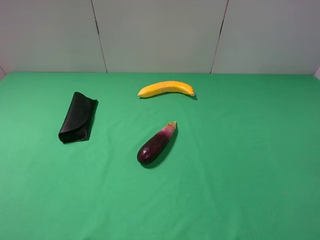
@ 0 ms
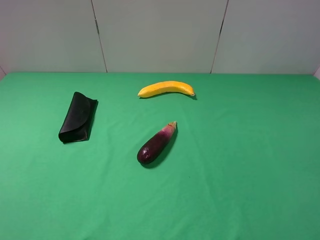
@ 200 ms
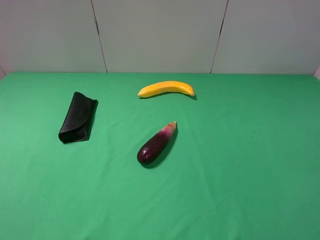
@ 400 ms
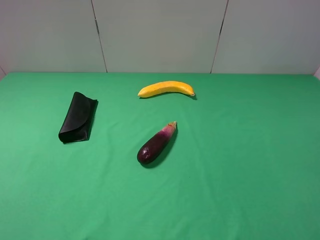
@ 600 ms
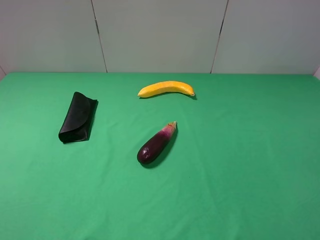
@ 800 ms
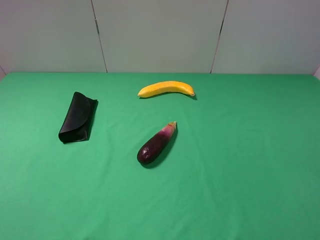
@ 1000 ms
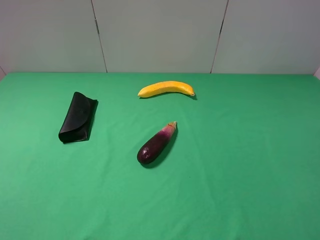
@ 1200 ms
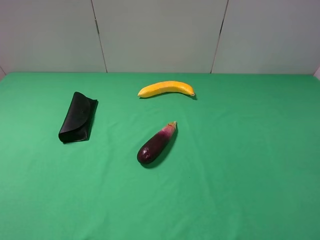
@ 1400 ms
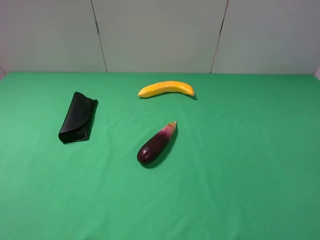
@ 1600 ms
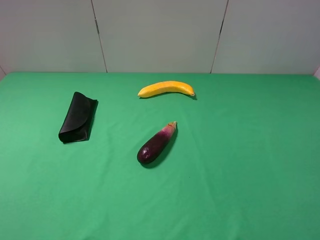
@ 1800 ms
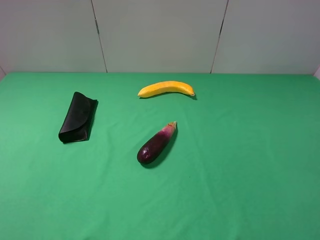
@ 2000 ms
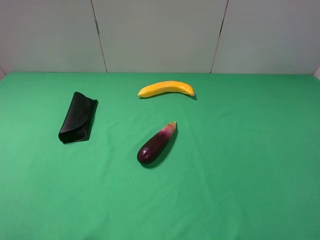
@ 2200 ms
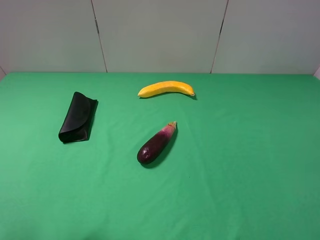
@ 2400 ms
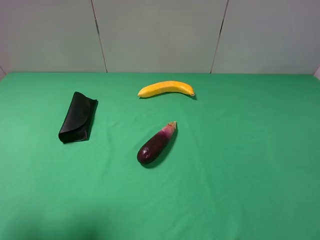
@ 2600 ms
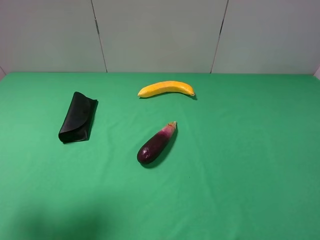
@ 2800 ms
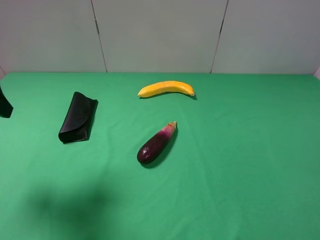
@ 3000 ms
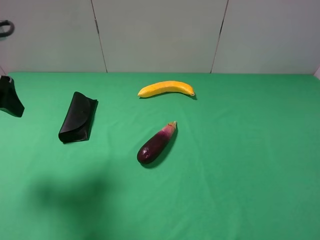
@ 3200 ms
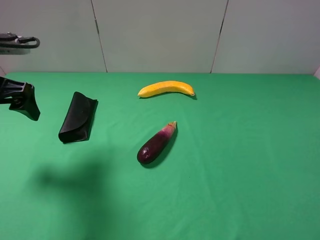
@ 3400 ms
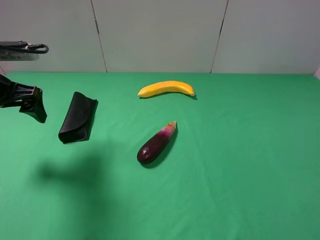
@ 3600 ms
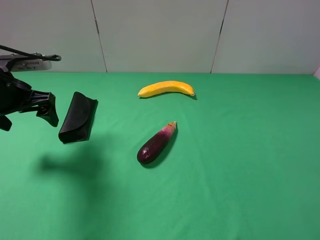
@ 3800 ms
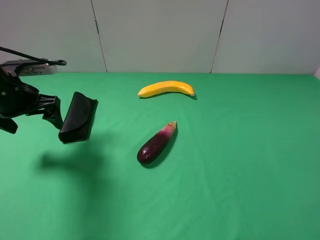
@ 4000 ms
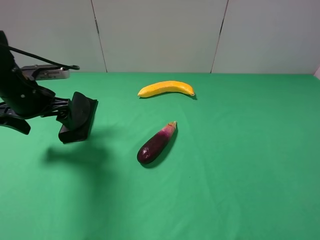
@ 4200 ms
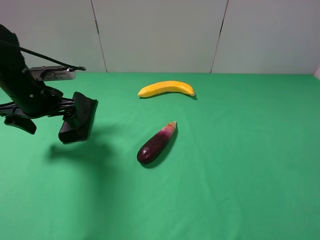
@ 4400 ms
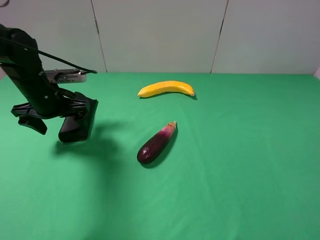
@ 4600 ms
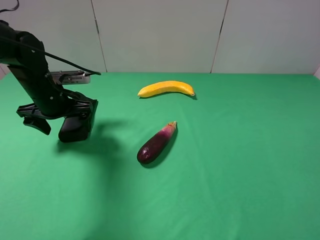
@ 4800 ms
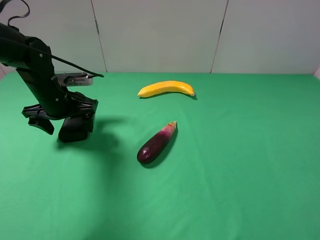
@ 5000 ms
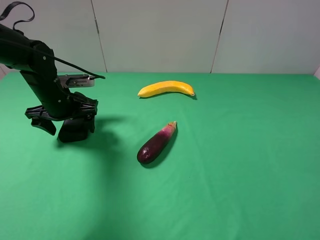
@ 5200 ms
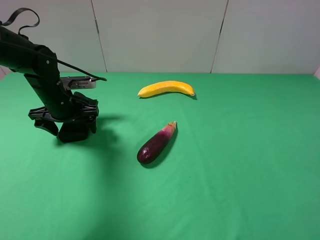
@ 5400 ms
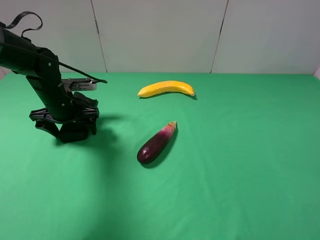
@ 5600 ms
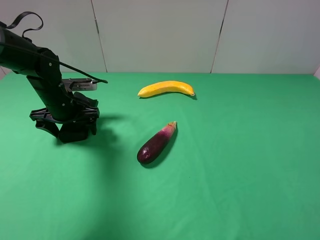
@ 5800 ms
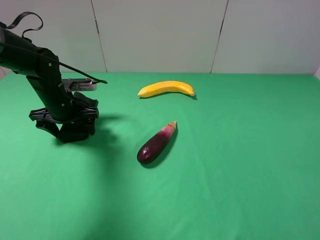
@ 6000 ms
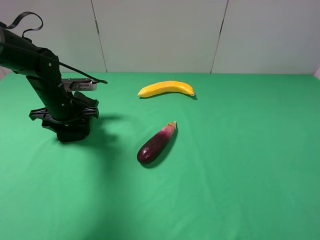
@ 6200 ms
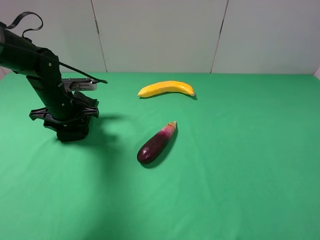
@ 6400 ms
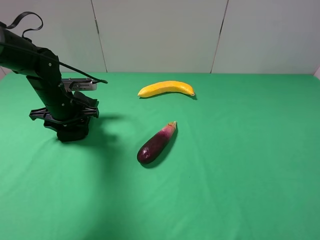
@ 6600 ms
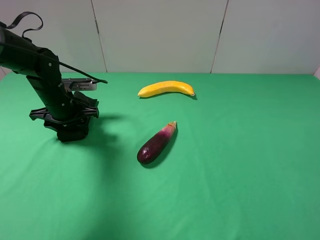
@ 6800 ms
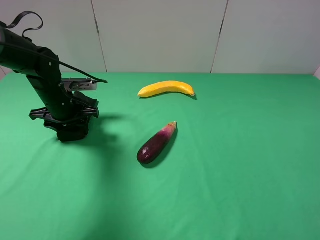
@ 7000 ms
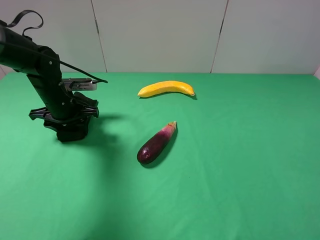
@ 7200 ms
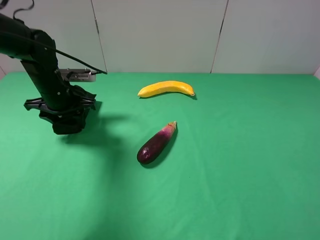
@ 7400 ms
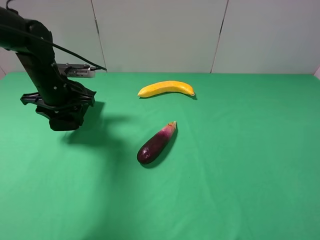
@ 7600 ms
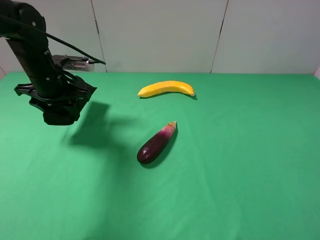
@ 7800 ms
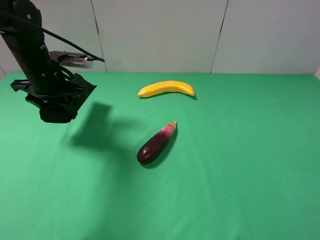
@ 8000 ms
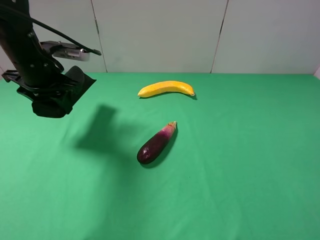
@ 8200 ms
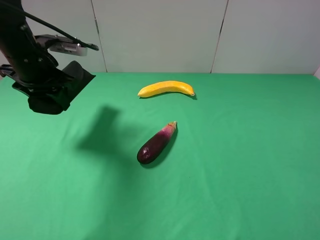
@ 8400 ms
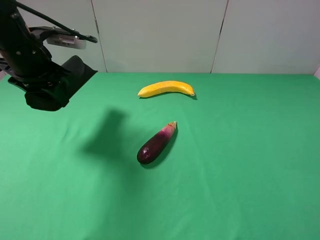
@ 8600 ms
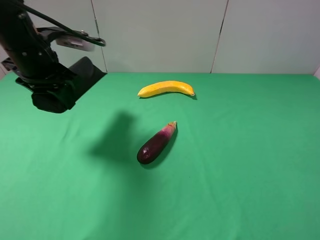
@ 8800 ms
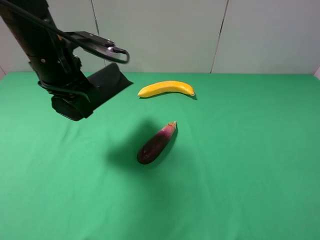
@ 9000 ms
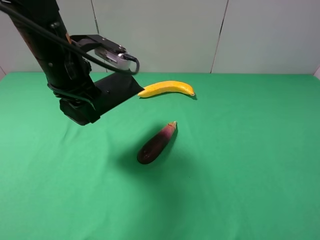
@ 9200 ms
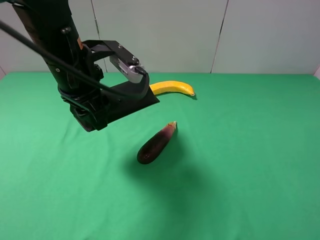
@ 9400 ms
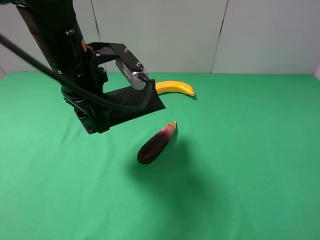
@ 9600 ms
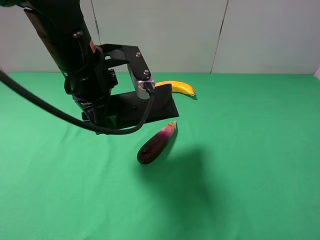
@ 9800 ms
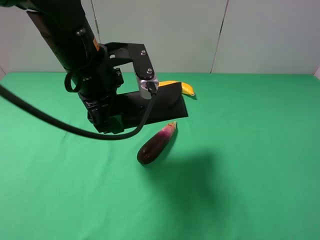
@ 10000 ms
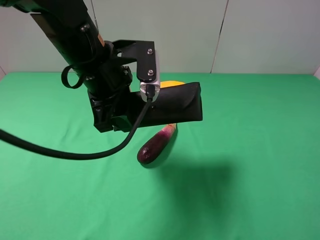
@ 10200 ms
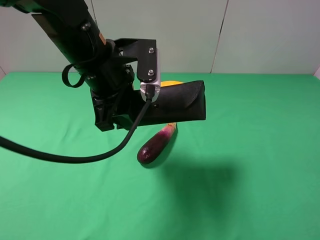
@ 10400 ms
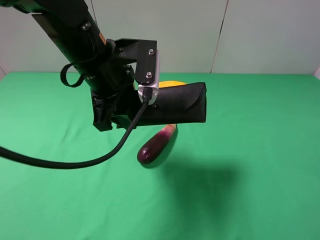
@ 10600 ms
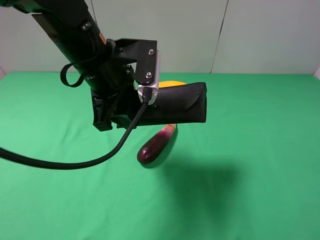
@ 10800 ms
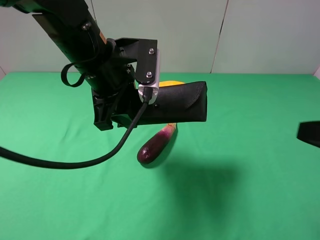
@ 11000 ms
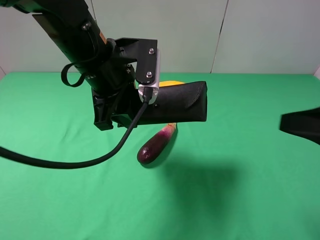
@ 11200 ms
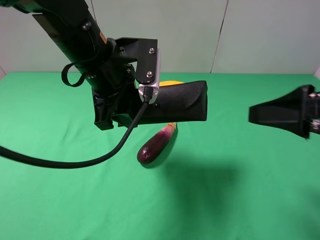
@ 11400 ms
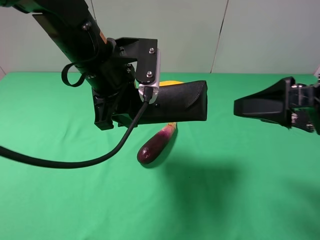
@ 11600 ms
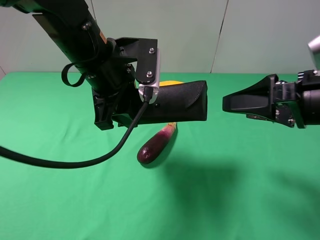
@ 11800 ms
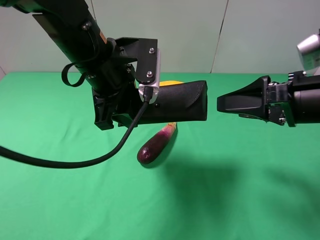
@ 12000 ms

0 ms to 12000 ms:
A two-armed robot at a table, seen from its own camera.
Task of the whole recording: use the left gripper to pick up the item and transfer it from the left gripper to the right gripper.
Step, 0 ms to 6400 ms: Use the left gripper to grab the eyeglass case on the left side of the table.
0 ms to 1600 ms: The two grippers keep their place.
1600 ms to 3000 ms: The left gripper is displaced forward by about 20 cm.
3000 ms to 4400 ms: The left gripper shifts roughly 20 cm downward and forward.
4400 ms to 6000 ms: The left gripper heads downward, covering about 5 cm.
6000 ms to 7600 ms: The left gripper heads upward, covering some 5 cm, and closes.
7600 ms to 9000 ms: The left gripper moves upward, to the right and backward, some 15 cm.
9000 ms to 10400 ms: The left gripper is displaced to the right by roughly 10 cm.
10400 ms to 12000 ms: The right gripper heads forward, covering some 20 cm.

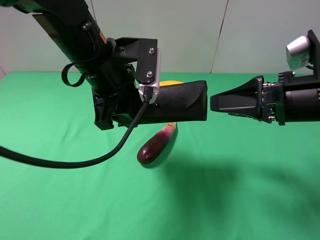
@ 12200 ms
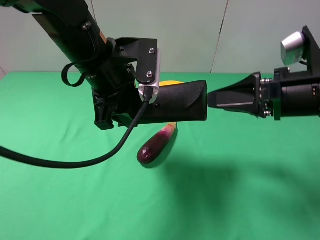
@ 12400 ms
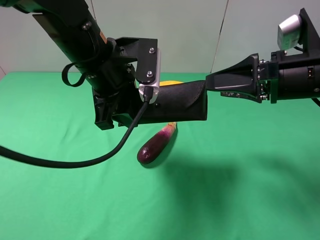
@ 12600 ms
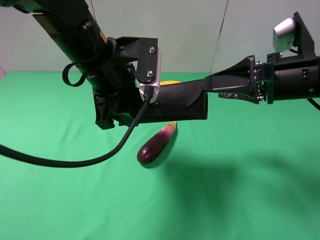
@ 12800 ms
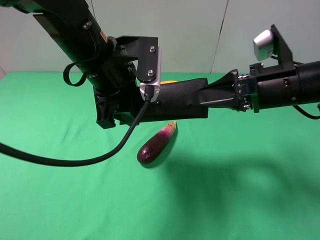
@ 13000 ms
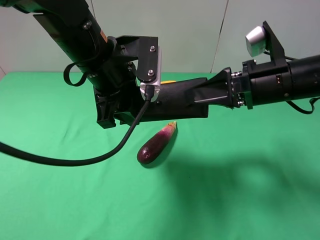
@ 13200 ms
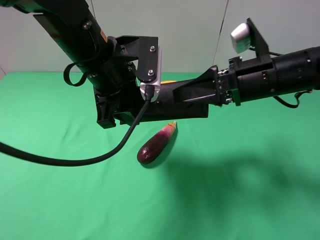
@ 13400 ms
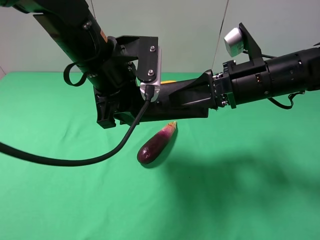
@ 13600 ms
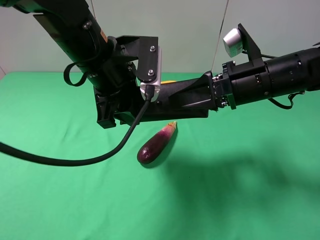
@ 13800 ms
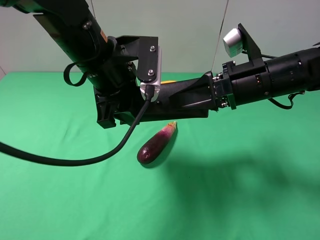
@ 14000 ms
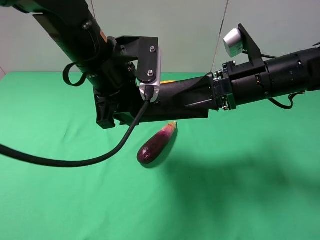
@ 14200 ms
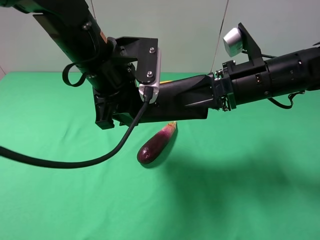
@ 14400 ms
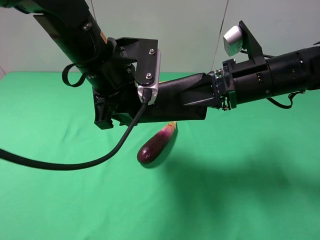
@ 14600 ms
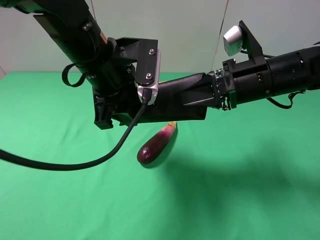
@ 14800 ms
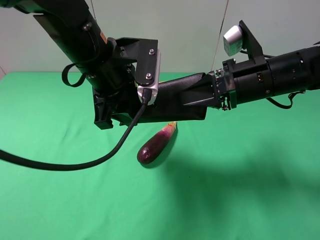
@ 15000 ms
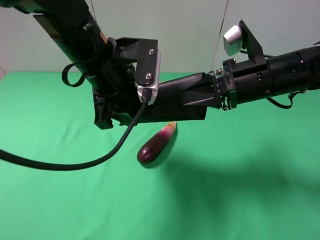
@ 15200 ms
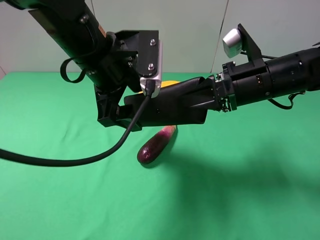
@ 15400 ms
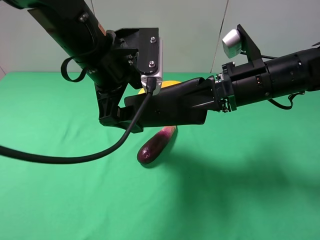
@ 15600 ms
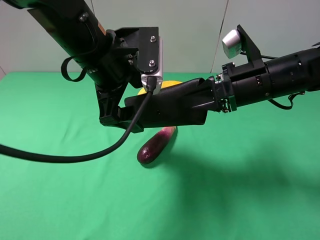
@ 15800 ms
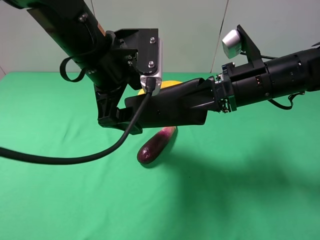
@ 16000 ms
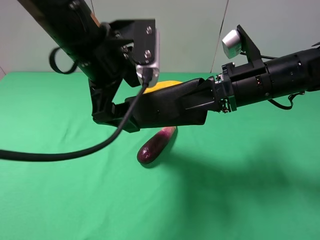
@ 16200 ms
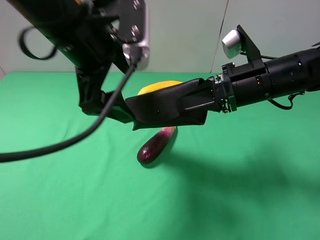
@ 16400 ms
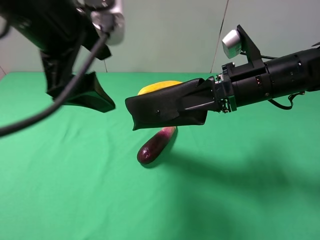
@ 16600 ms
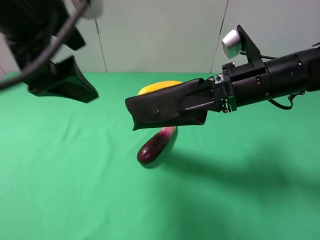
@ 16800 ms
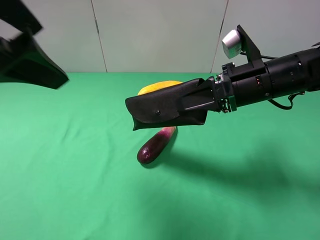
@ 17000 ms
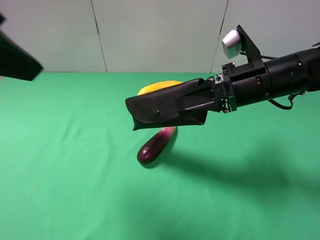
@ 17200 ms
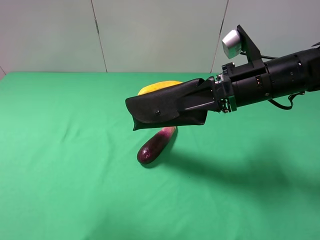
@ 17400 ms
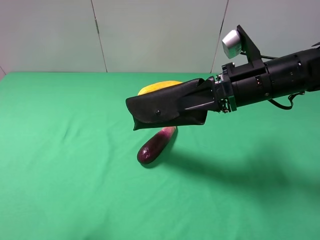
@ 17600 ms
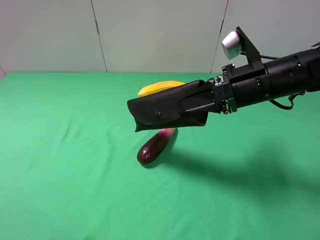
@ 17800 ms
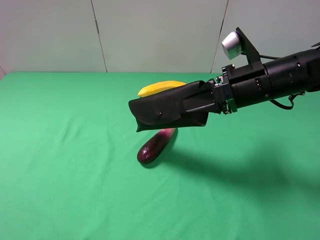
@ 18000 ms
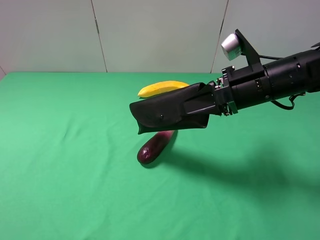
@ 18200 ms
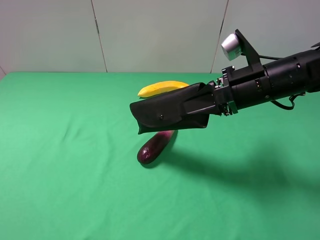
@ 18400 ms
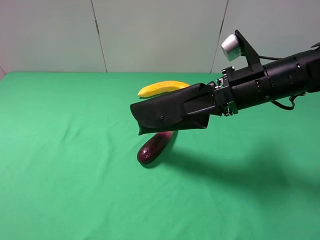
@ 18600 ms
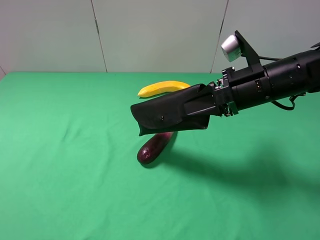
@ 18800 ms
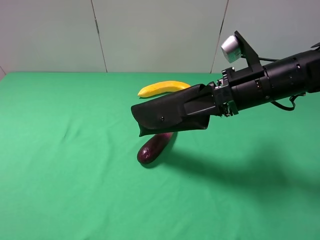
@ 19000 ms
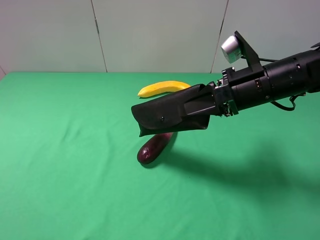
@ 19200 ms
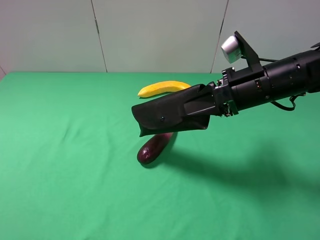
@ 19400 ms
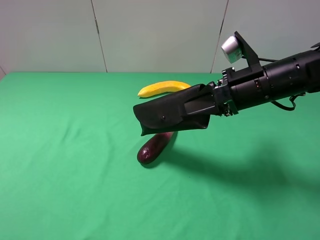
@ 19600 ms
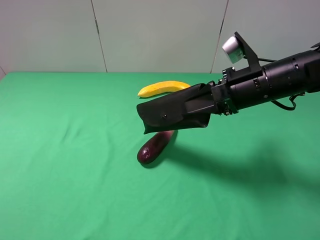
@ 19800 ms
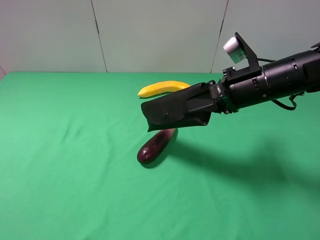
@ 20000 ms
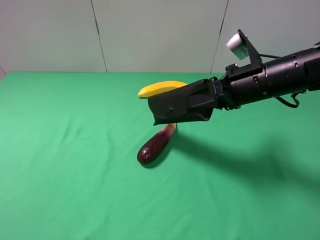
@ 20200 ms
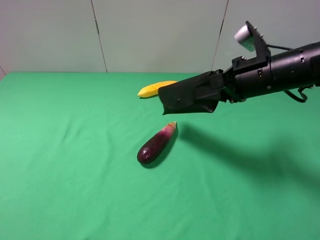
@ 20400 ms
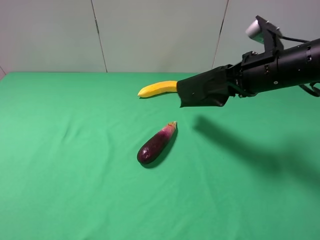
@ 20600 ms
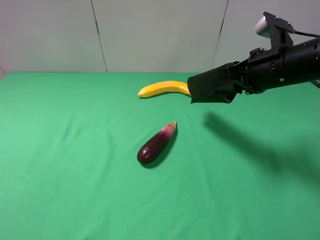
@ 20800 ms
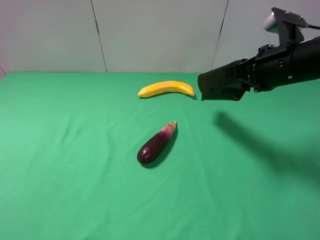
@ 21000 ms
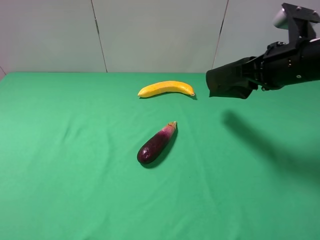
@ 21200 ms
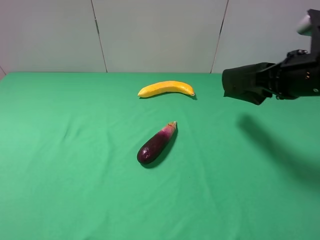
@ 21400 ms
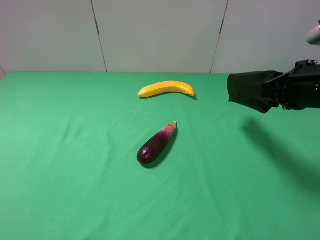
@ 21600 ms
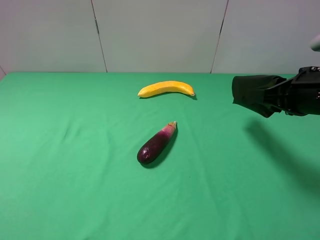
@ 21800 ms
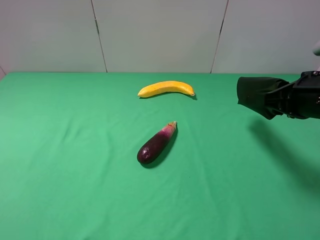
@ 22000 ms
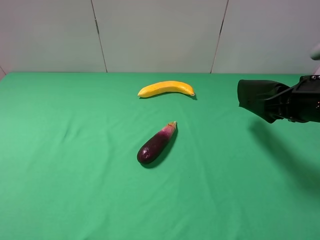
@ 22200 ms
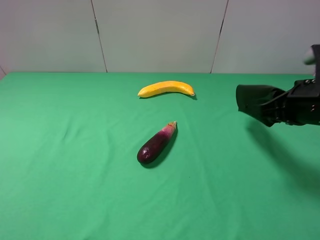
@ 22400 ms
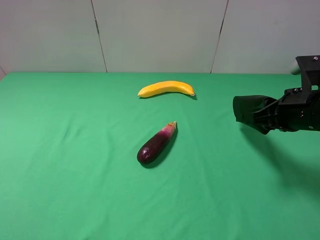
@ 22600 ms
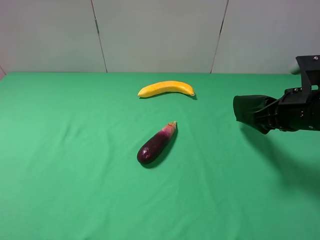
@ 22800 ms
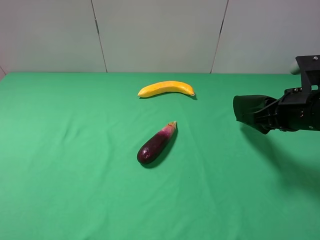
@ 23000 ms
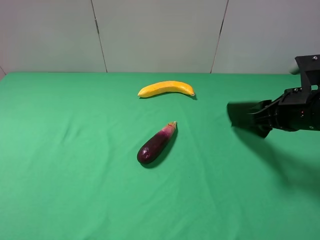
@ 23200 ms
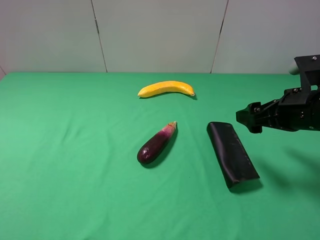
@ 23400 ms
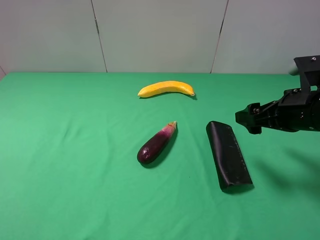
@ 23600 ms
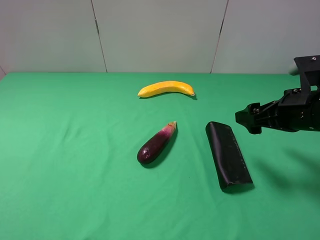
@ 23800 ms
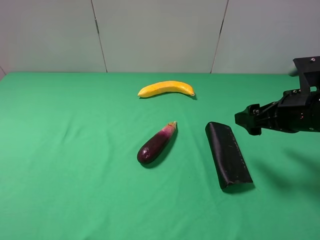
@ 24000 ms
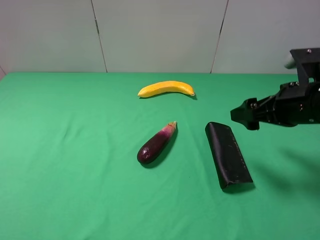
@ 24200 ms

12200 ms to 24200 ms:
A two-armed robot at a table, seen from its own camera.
Task of the whole recording: use the left gripper to pick up the item and transfer it from the left gripper to the right gripper.
Step, 12200 ms to 16000 ms: Pass the eyeglass case to the right gripper.
12200 ms to 13800 ms: The right gripper moves to the left and forward, about 10 cm.
13800 ms to 15200 ms: The right gripper closes up.
15200 ms to 16600 ms: The left gripper travels upward by roughly 10 cm, and opens.
16600 ms to 18200 ms: The left gripper shifts roughly 30 cm backward and to the left.
19800 ms to 21200 ms: The right gripper heads to the right, covering roughly 5 cm.
21200 ms to 22600 ms: The right gripper is displaced downward by some 5 cm.
22600 ms to 24200 ms: The right gripper opens.
